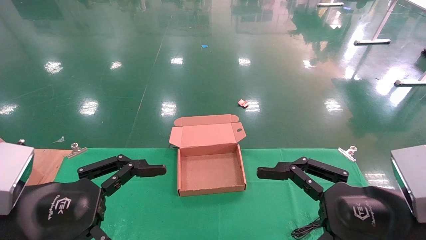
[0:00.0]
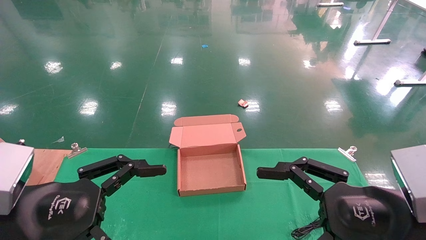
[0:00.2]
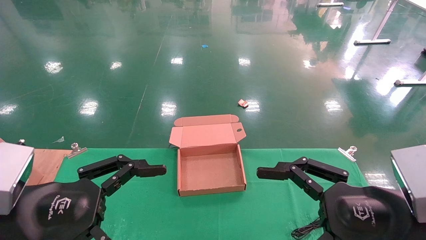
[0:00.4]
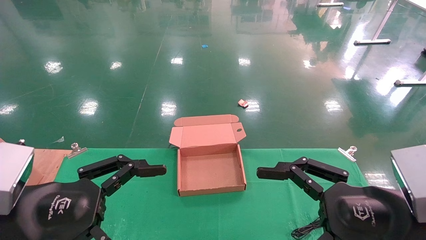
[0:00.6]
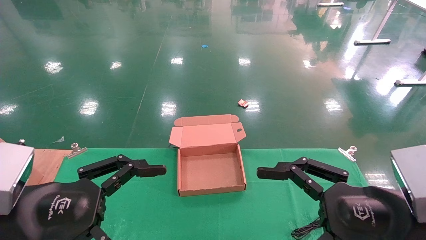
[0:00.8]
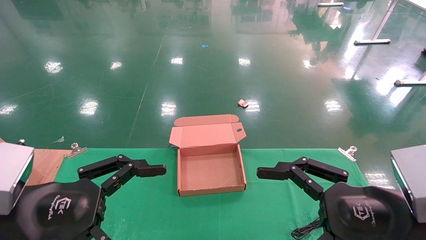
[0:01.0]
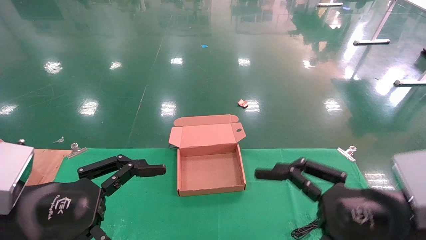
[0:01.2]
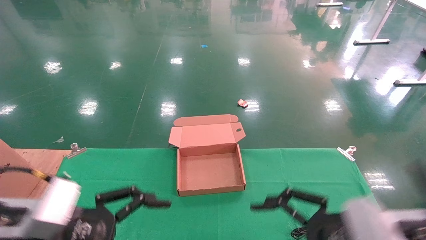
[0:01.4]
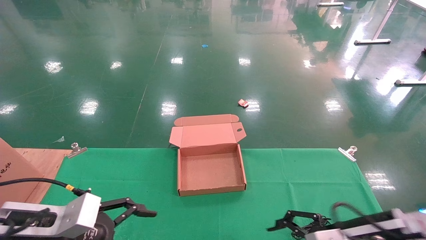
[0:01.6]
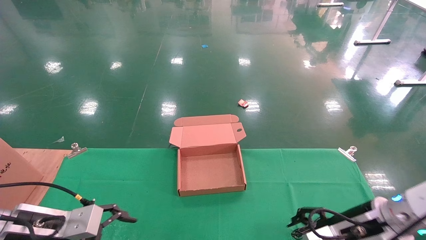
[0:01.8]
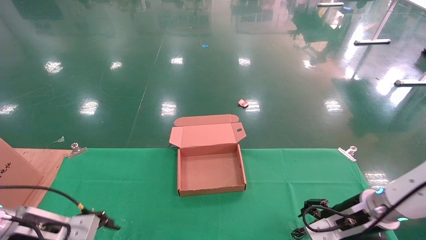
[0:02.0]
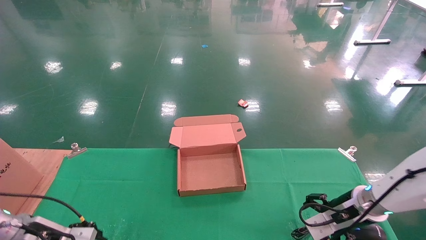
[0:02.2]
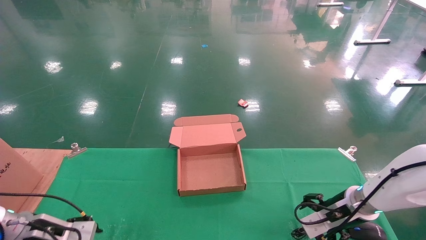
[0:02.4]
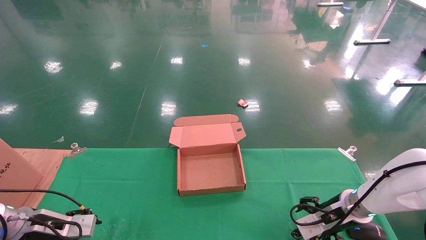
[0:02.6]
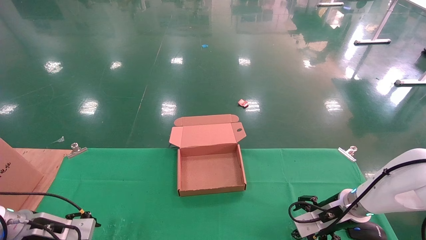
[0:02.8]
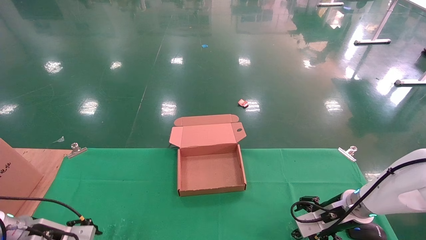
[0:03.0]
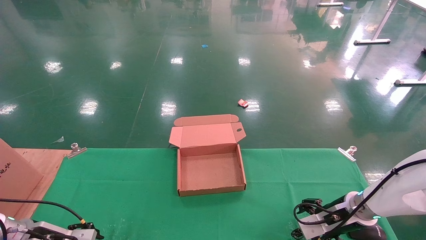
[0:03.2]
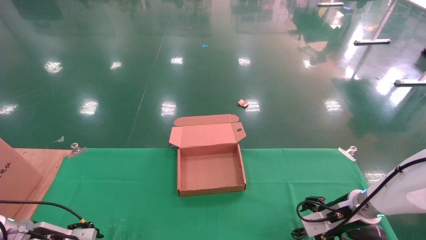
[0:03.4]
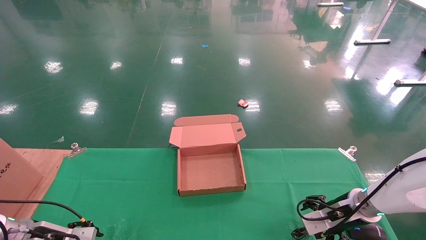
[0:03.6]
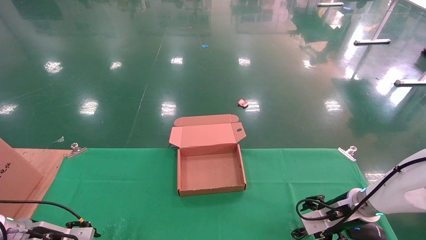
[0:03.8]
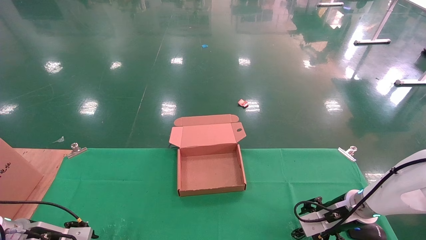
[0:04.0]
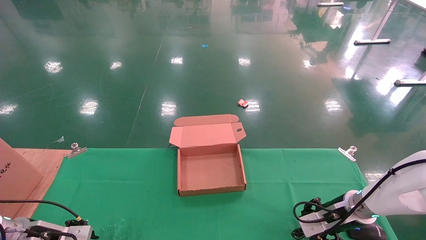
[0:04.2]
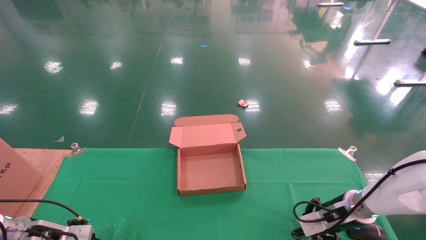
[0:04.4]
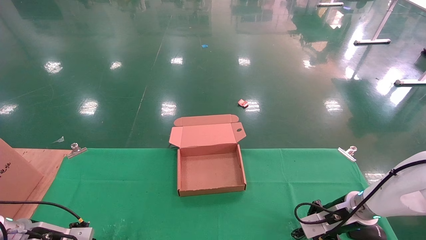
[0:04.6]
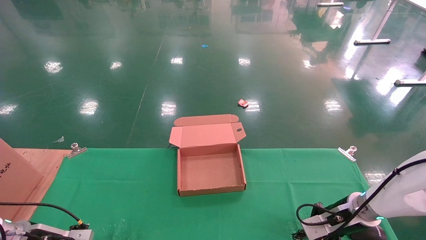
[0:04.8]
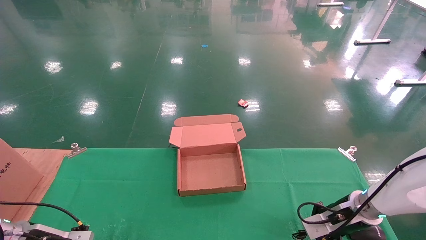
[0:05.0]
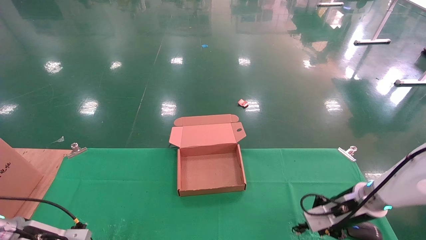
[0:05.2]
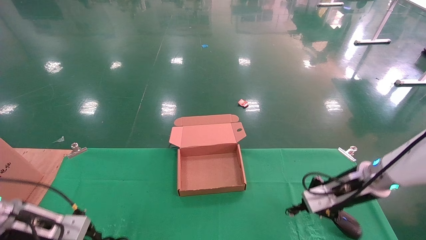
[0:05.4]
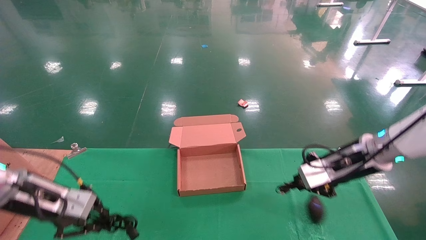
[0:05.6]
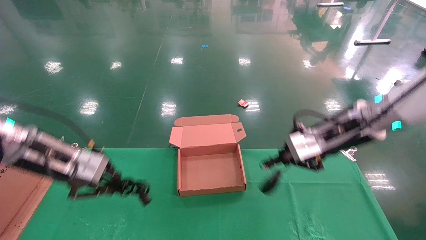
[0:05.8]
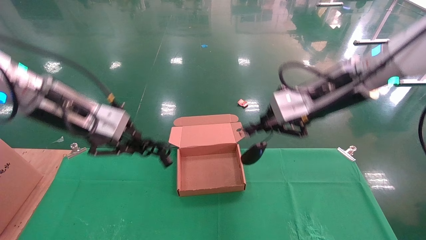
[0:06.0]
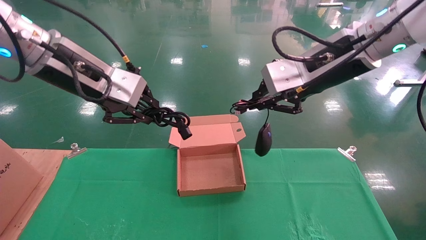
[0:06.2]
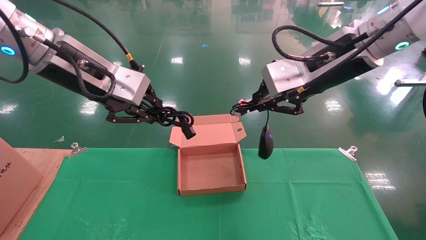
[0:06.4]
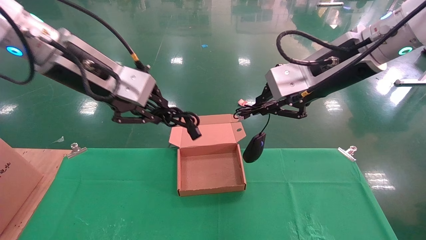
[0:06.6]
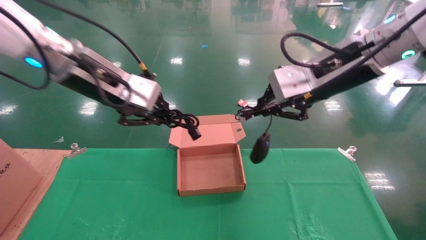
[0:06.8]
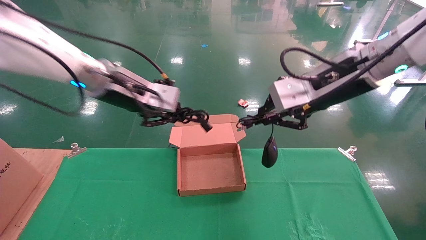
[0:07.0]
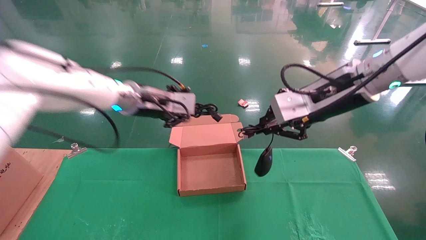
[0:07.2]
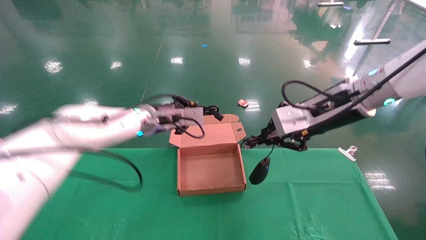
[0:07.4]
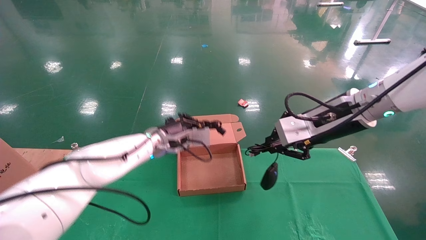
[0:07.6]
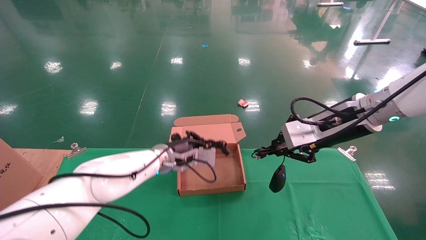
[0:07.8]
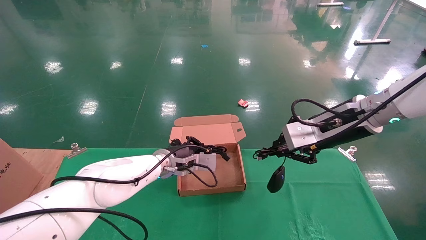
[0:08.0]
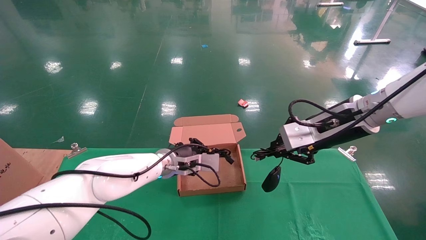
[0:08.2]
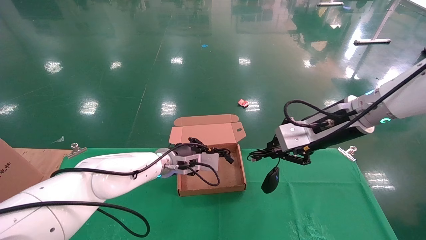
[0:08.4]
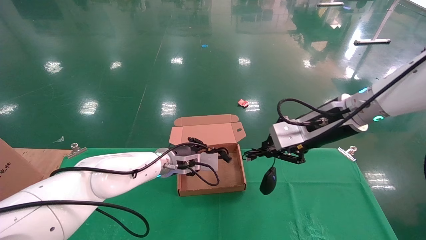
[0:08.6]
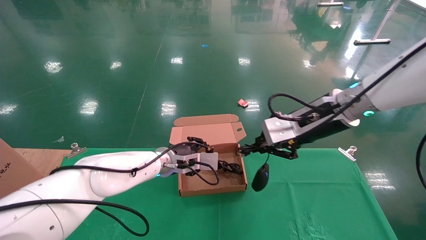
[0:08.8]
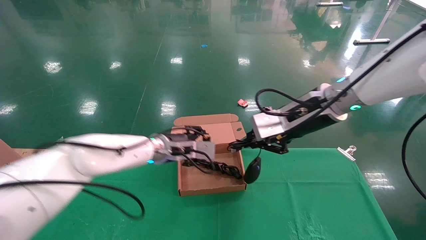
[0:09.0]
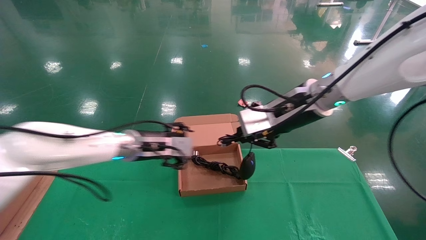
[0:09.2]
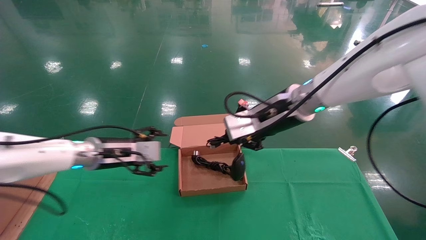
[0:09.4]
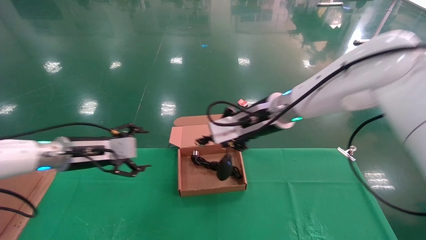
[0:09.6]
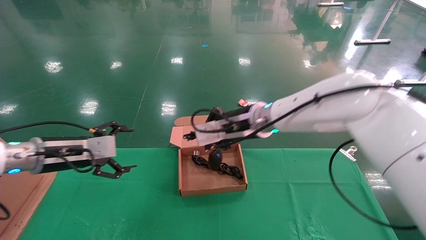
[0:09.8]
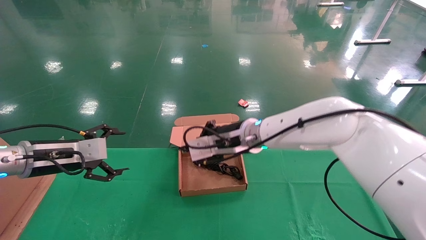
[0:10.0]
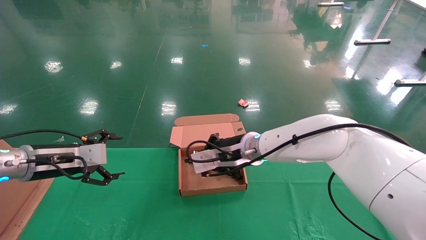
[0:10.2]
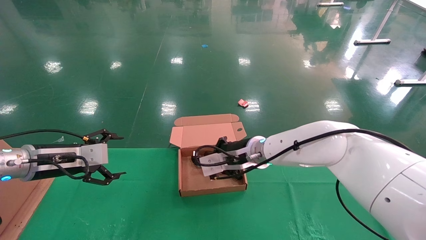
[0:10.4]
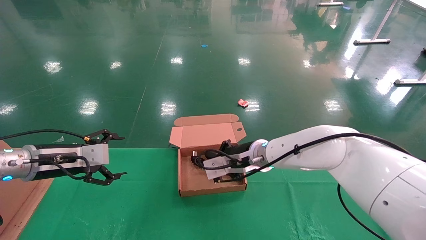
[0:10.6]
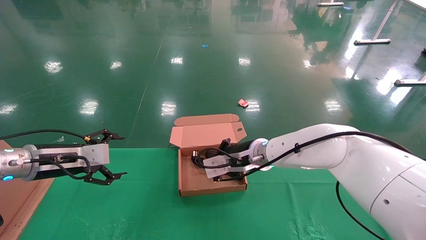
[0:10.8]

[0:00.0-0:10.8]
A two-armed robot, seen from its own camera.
Step, 0:02.4 to 0:05.8: Grab and lift both the mouse and power cord from the accessory packaging area at the same time.
0:00.0 to 0:01.6: The right gripper heads forward and downward, covering roughly 10 cm, while the left gripper travels downward and forward by roughly 10 cm.
0:01.6 to 0:03.0: The right gripper goes some 15 cm forward and downward, while the left gripper heads downward, forward and to the left, covering roughly 15 cm.
0:03.0 to 0:04.6: The right gripper closes. Meanwhile the left gripper closes its fingers.
0:04.6 to 0:06.2: The right gripper moves upward, approximately 35 cm. Meanwhile the left gripper goes some 40 cm upward and to the right.
0:06.2 to 0:07.8: The left gripper moves downward, forward and to the right, some 30 cm; the right gripper moves downward, roughly 10 cm.
0:07.8 to 0:09.2: Both grippers move to the left, roughly 10 cm. The left gripper opens up.
0:09.2 to 0:10.8: The right gripper heads downward, to the left and forward, covering roughly 15 cm, while the left gripper is displaced to the left and backward by roughly 20 cm, and opens.

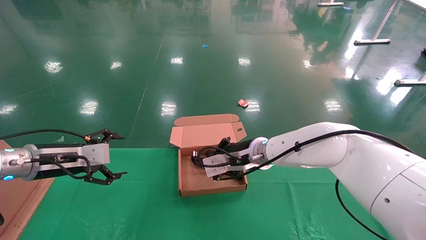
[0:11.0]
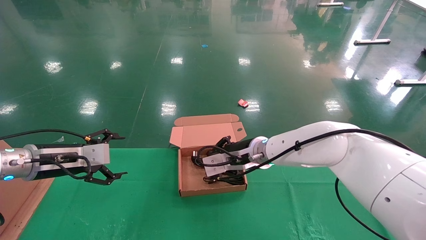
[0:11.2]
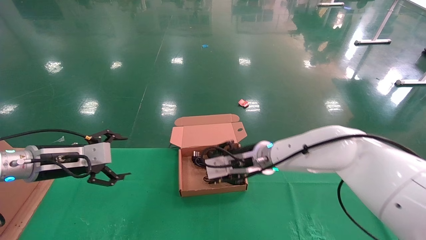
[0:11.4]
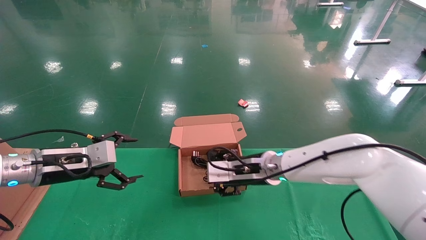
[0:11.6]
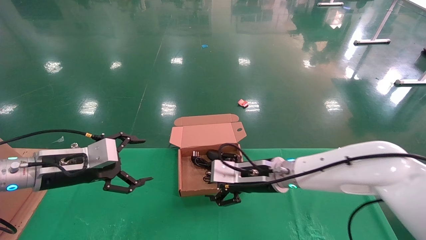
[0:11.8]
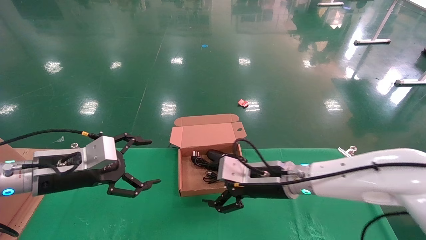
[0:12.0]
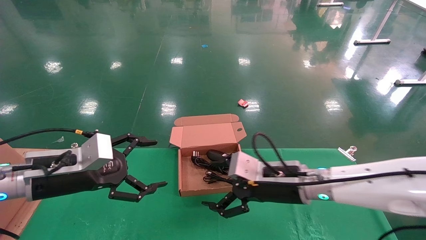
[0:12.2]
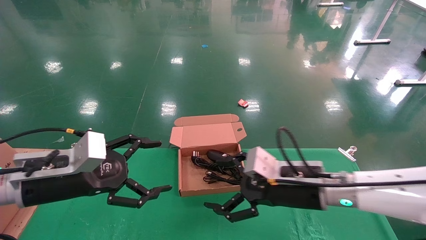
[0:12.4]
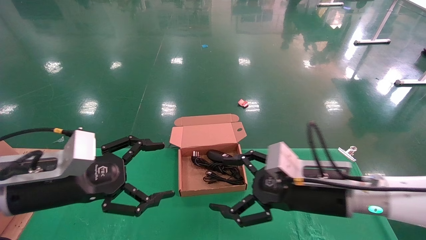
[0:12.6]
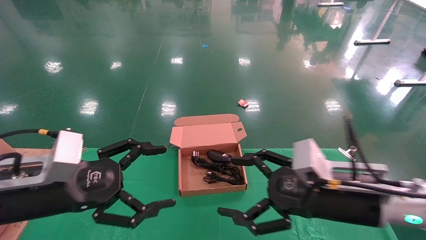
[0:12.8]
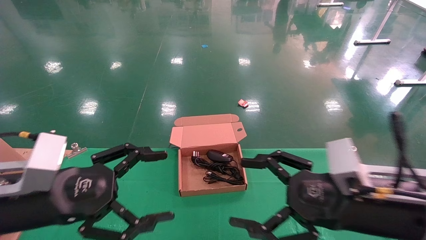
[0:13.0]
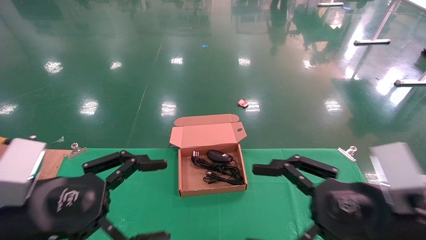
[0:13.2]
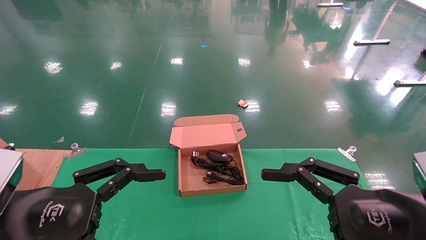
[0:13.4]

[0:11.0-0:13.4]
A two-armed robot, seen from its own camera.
0:11.0 to 0:12.2: Both grippers move backward and to the right, some 10 cm. The right gripper opens its fingers.
0:12.2 to 0:13.4: The left gripper is displaced backward by approximately 15 cm. The right gripper moves backward and to the right, some 20 cm.
